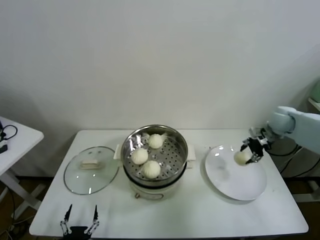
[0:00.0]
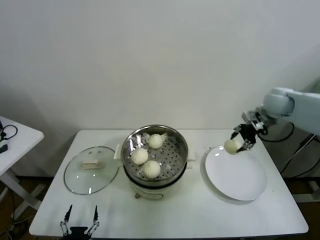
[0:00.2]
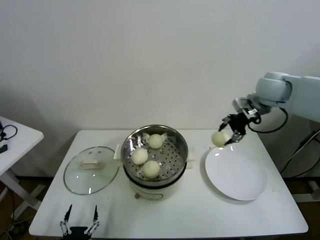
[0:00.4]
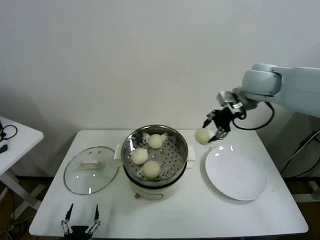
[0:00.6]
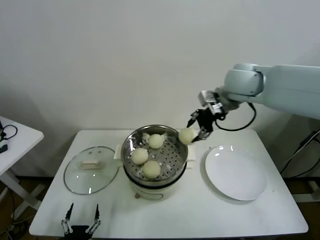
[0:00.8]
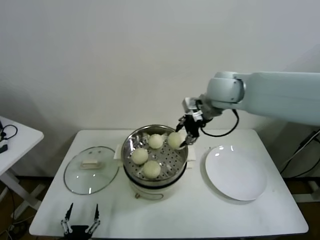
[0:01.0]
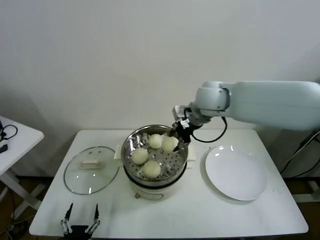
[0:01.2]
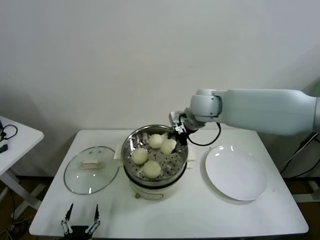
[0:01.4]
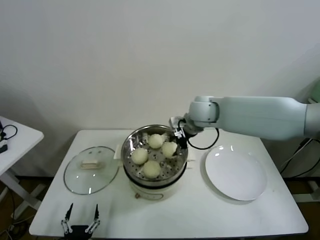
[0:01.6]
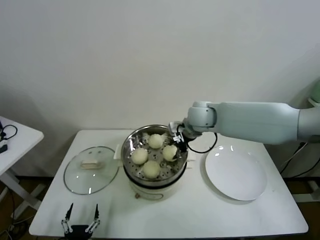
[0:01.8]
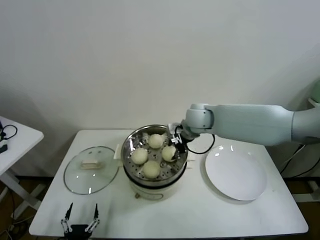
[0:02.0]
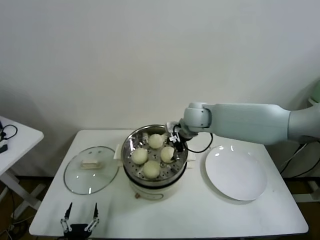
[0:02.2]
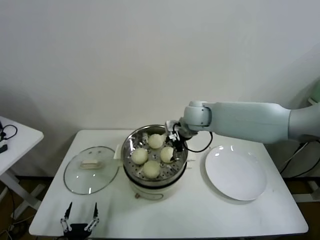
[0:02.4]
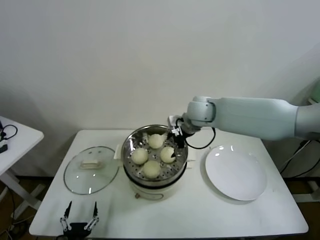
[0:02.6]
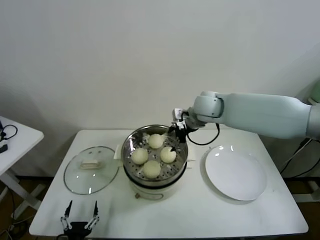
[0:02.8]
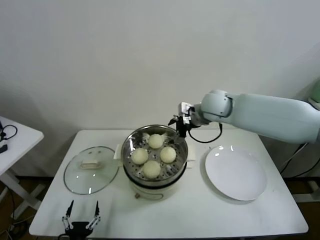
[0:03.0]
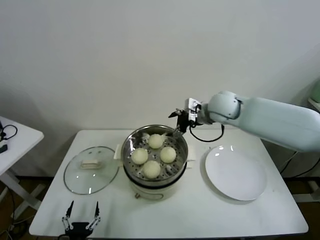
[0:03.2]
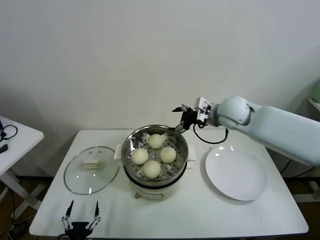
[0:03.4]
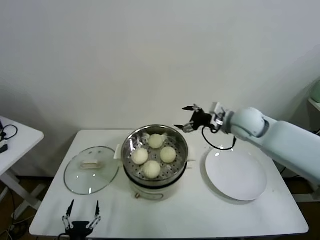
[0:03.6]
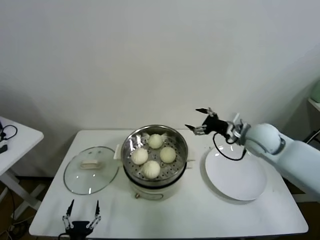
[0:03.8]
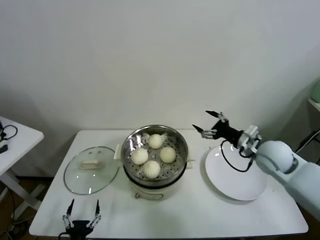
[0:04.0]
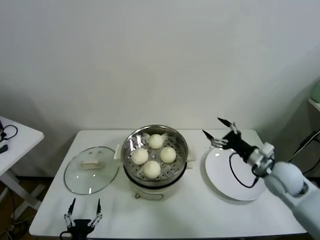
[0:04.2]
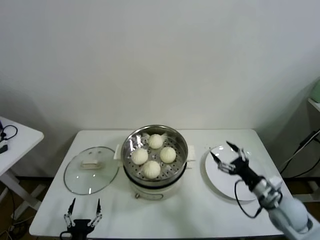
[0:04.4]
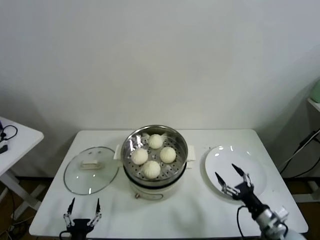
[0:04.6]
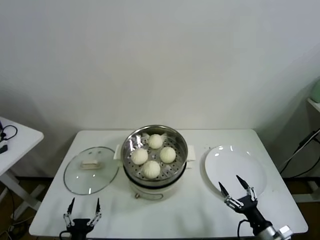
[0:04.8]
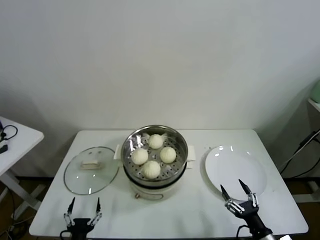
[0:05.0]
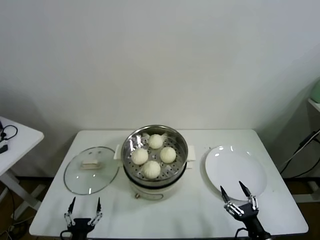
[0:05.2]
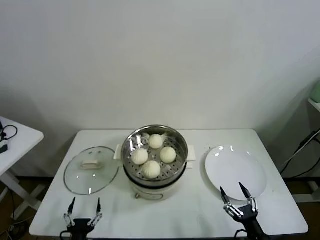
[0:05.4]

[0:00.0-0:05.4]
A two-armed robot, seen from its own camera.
Task of the whole recording: take steamed baozi put them in steamer.
Step, 0:00.0 to 0:02.2: Place the baozi on the steamer with right gripper.
0:00.0 to 0:01.4: The right gripper goes roughly 30 cm to the left.
0:01.4 to 0:02.8: The right gripper opens its fingers.
0:02.8 to 0:04.0: The right gripper moves to the right, backward and downward, about 25 cm.
0:04.0 to 0:05.4: The right gripper travels backward and downward by about 35 cm.

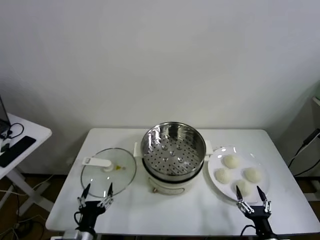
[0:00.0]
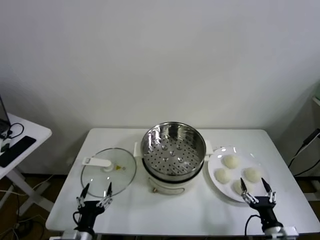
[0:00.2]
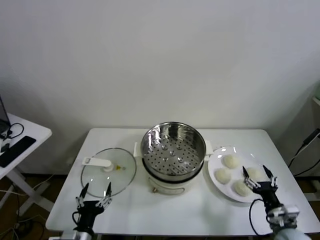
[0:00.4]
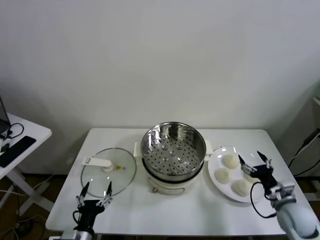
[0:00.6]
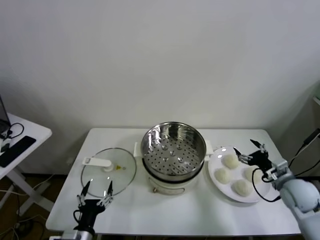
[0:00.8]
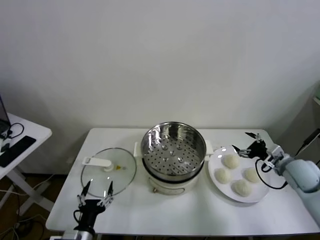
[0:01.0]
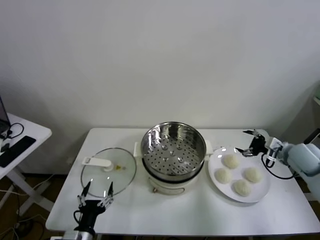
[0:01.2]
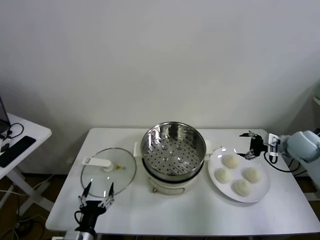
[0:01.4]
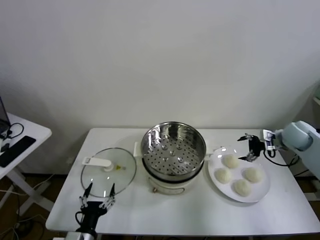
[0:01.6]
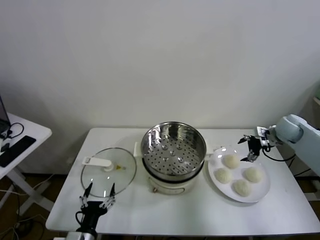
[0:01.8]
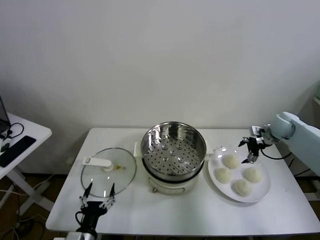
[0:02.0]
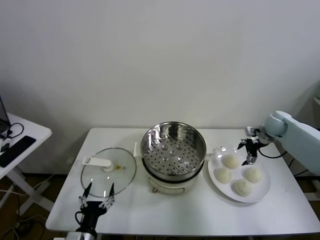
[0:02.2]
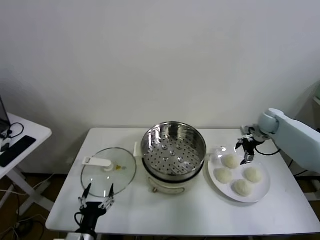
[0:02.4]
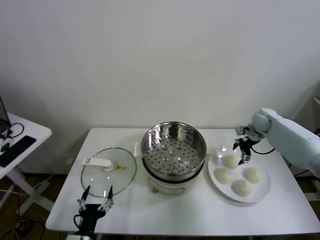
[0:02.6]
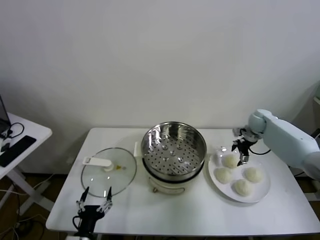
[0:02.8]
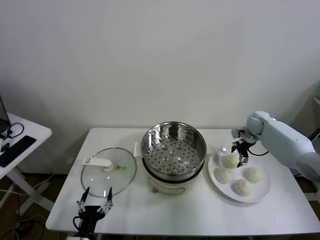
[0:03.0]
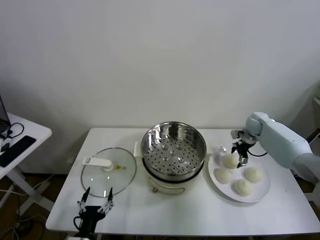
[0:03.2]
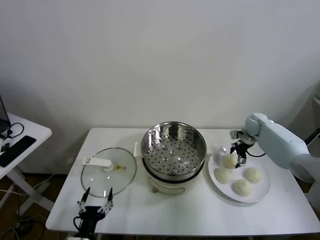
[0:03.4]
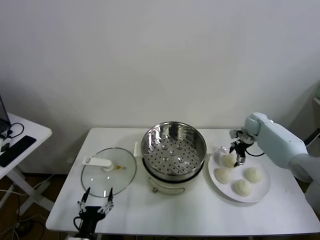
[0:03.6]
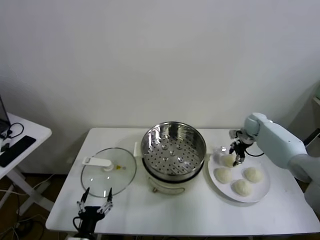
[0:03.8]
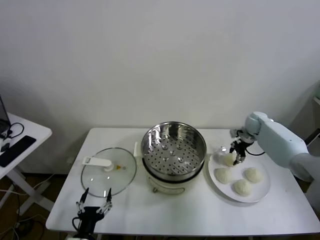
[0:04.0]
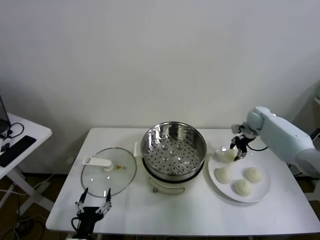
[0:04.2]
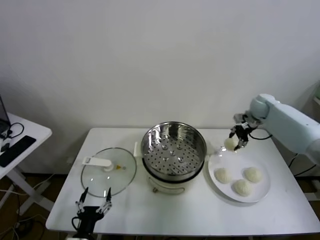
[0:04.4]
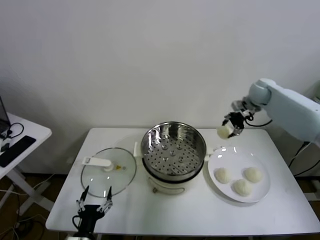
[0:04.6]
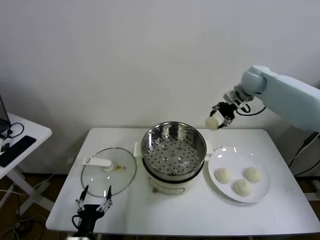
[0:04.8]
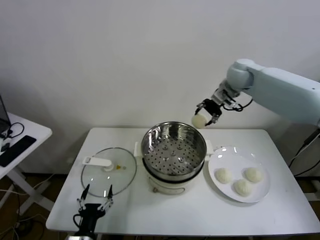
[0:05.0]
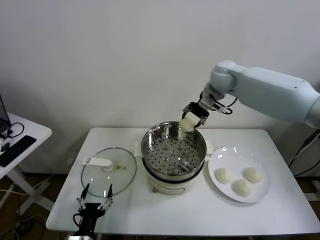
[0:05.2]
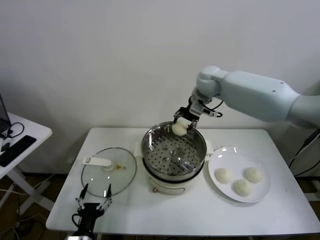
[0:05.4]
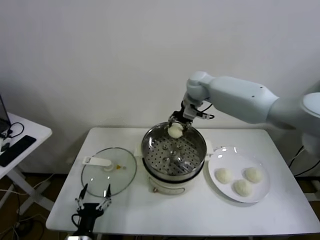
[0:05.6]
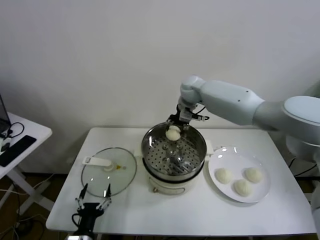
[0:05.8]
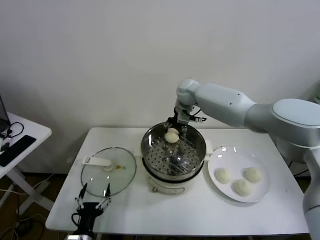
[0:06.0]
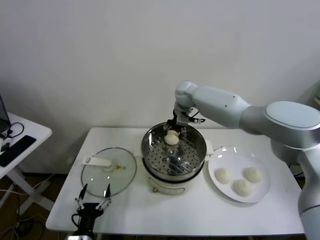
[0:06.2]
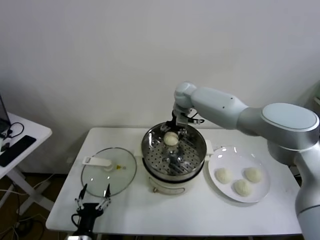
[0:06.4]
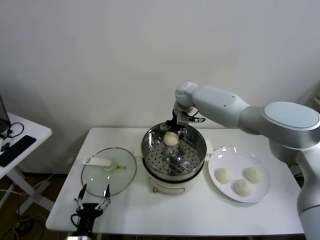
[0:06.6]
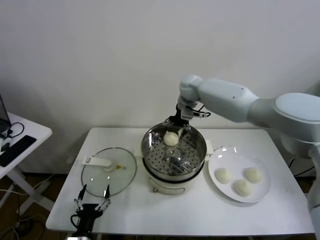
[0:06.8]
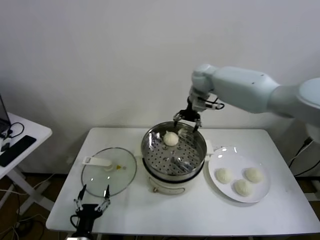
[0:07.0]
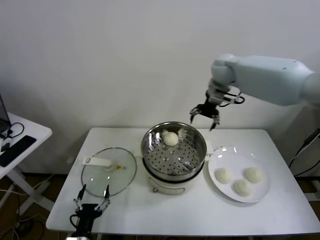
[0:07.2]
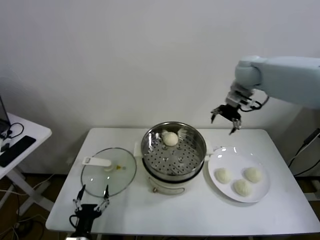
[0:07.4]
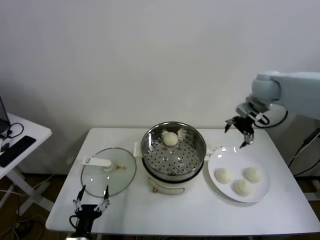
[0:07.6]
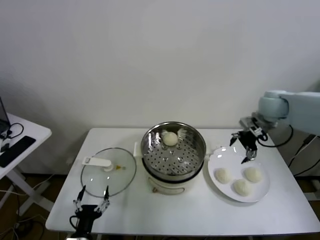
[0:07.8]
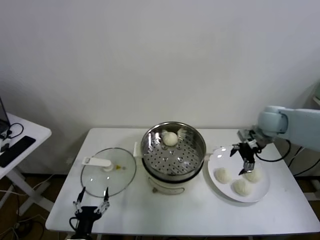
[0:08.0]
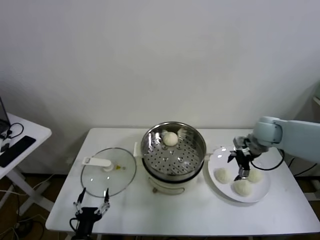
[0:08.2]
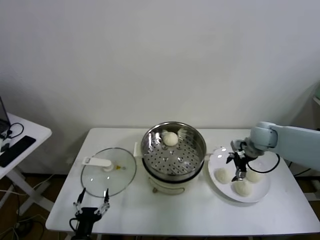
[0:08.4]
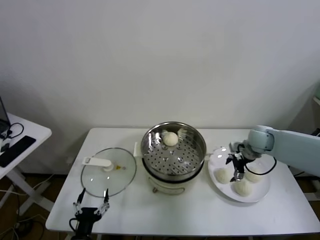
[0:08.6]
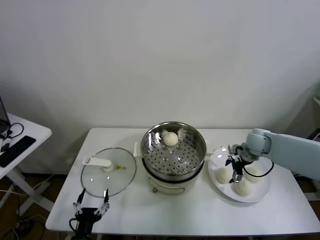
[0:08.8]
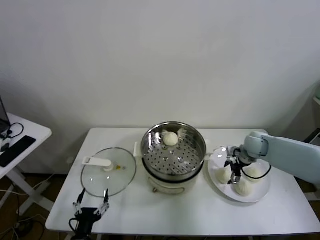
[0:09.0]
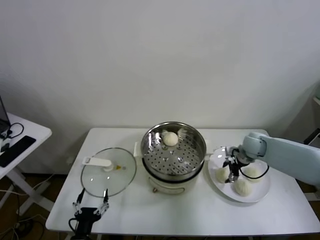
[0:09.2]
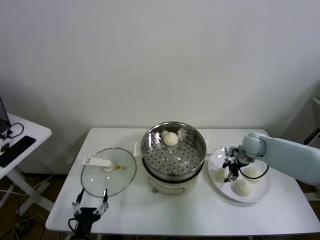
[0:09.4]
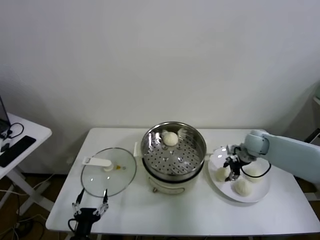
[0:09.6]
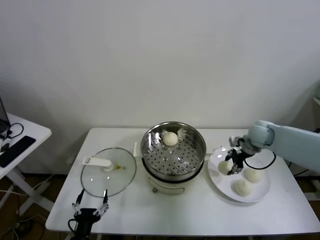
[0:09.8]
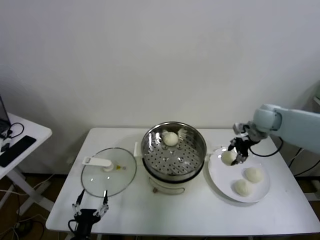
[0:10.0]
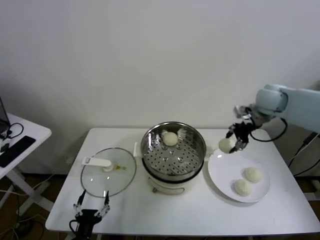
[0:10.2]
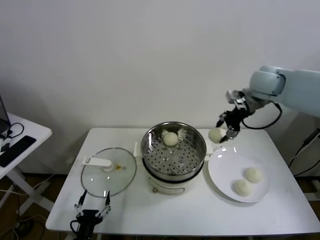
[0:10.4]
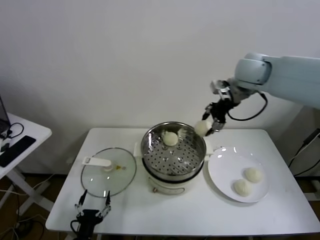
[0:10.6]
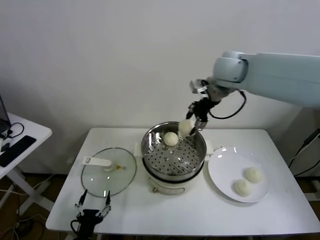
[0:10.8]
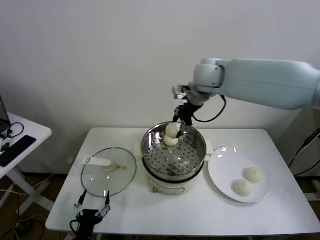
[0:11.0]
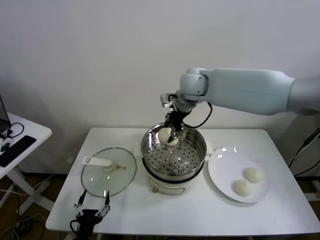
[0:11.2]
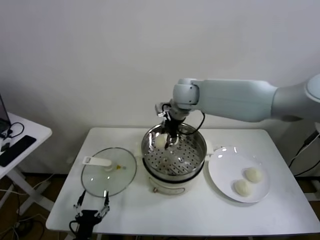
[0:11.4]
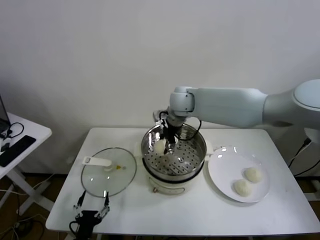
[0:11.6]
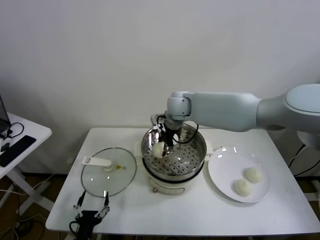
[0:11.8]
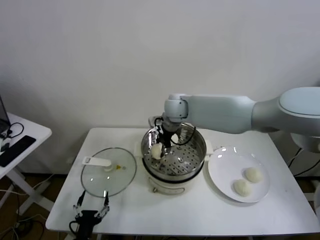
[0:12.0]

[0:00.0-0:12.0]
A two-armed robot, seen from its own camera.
Task of the whole recording: take steamed baozi put them in steamer.
Step, 0:00.0 to 0:03.6: Grasp the baozi in the plate with right gripper.
Step, 0:03.8 to 0:06.6: Place the baozi on the steamer with right gripper.
Step, 0:06.8 to 0:09.2: Grasp the baozi in the plate with right gripper.
0:01.6 to 0:03.0: The right gripper shifts roughly 15 cm forward, to the left and downward.
0:03.0 to 0:04.4: The right gripper heads upward, covering roughly 10 cm, and closes.
0:04.4 to 0:06.0: The right gripper heads to the left, covering approximately 30 cm.
0:06.0 to 0:07.6: The right gripper is displaced to the right by approximately 25 cm, and opens its fingers.
0:07.6 to 0:09.0: The right gripper travels downward by about 25 cm.
0:09.0 to 0:10.4: The right gripper travels upward by some 25 cm, and closes.
0:10.4 to 0:12.0: The right gripper shifts about 25 cm to the left.

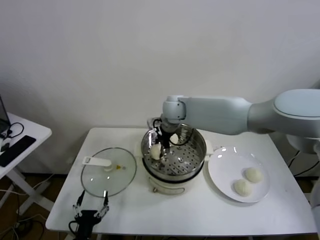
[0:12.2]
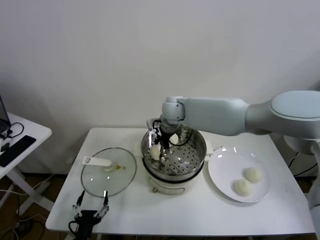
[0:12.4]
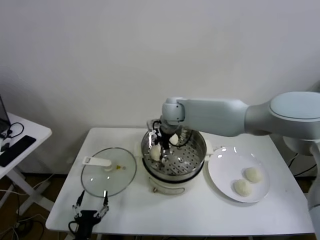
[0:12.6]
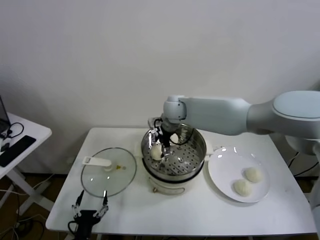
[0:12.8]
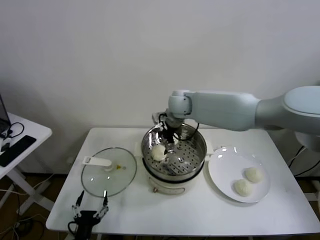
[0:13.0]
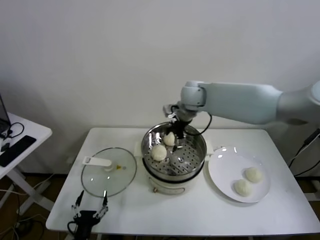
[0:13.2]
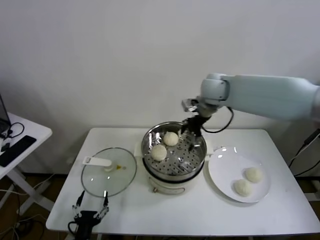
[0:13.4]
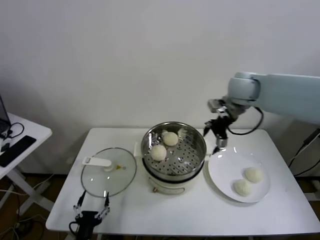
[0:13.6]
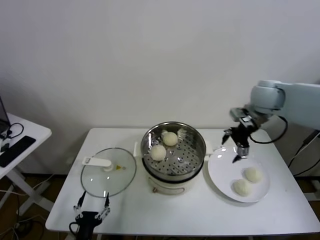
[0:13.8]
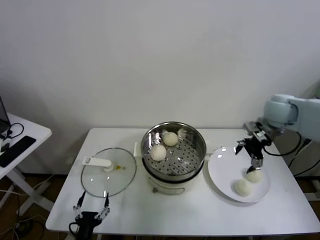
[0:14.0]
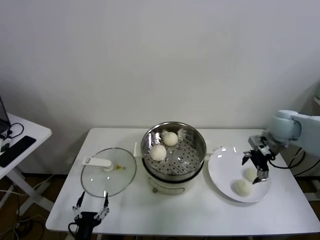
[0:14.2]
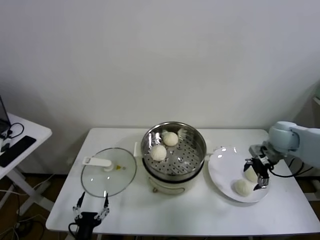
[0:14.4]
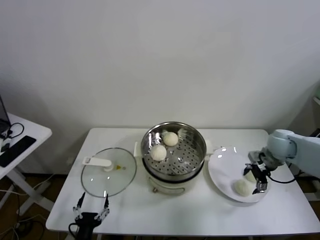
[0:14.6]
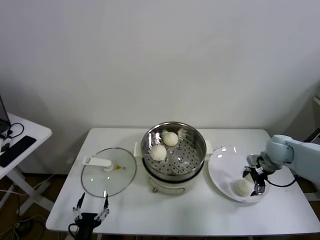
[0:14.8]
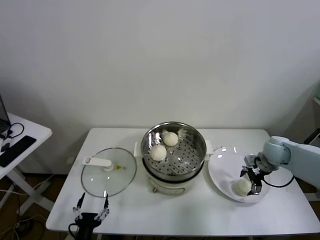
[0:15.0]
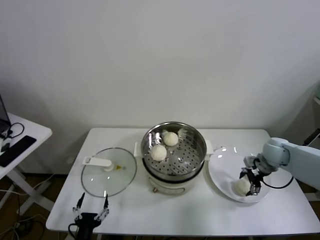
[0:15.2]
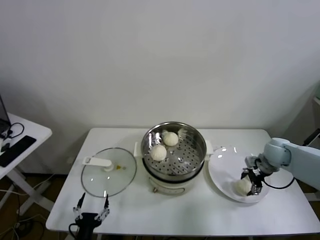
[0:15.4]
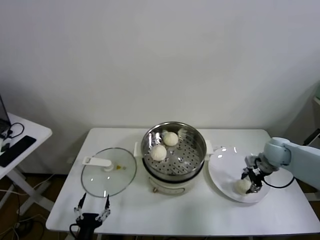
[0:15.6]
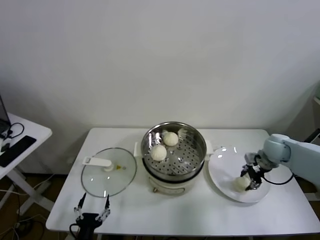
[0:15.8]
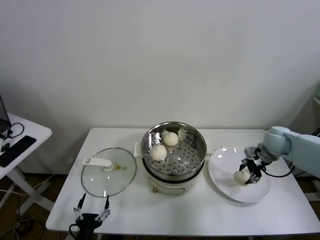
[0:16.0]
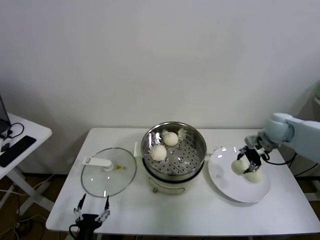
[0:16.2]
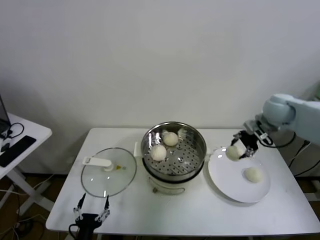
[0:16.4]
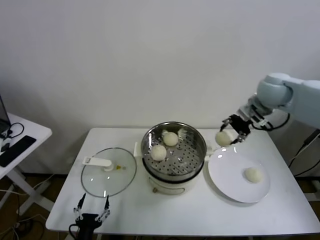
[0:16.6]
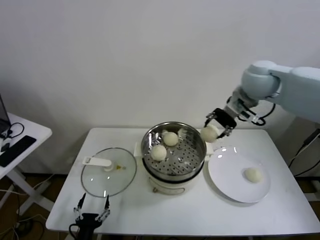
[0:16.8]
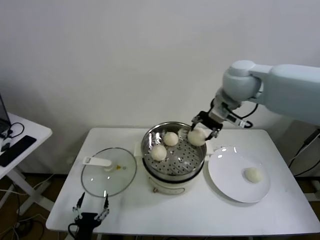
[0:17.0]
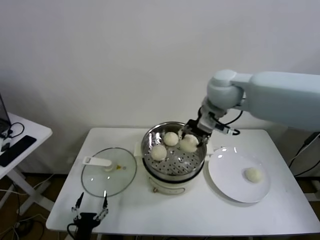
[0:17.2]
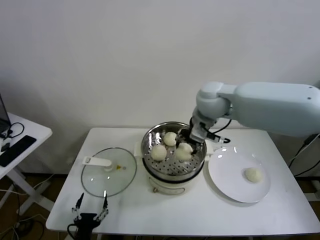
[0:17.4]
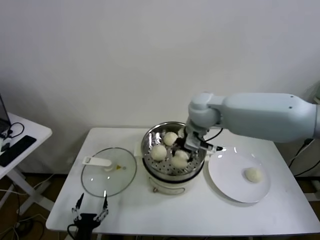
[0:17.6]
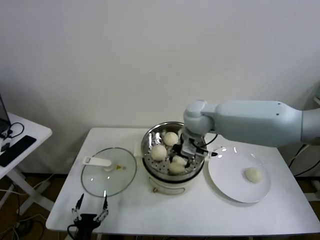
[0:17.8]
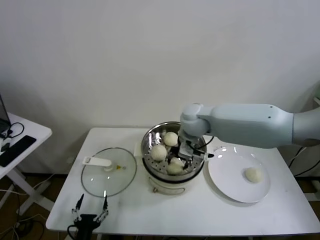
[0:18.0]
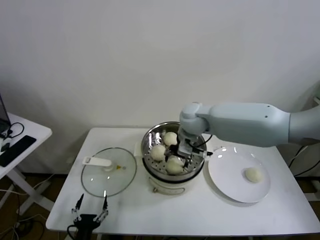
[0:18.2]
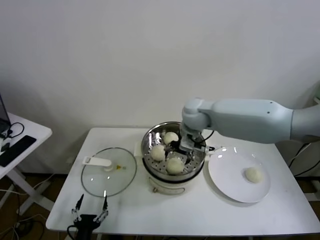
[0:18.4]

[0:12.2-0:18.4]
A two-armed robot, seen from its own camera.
Task of the whole recording: take steamed baozi put them in steamer.
Step, 0:13.0 to 0:15.4: Grasp the baozi in the plate with right gripper.
Step, 0:15.6 to 0:18.2: Place the baozi on the steamer with right gripper.
0:12.2 to 0:13.8: The right gripper travels to the right by roughly 25 cm, and opens.
0:13.8 to 0:15.4: The right gripper goes approximately 25 cm downward and to the right.
0:15.4 to 0:16.8: The right gripper is displaced upward and to the left by about 30 cm, and closes up.
0:16.8 to 0:18.4: The right gripper heads to the left and downward, covering roughly 20 cm, and opens.
